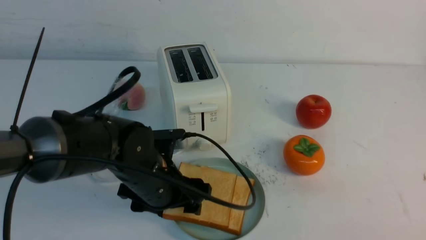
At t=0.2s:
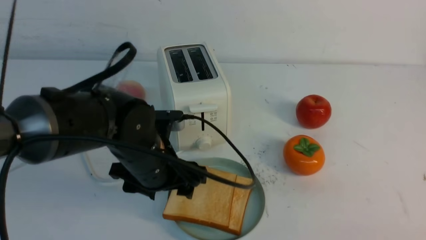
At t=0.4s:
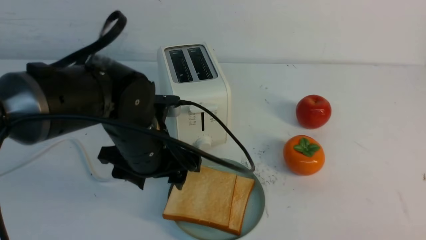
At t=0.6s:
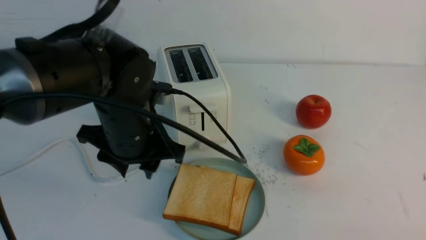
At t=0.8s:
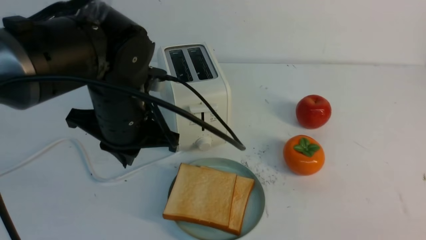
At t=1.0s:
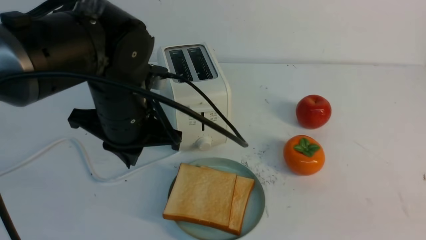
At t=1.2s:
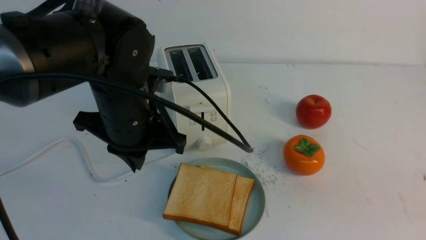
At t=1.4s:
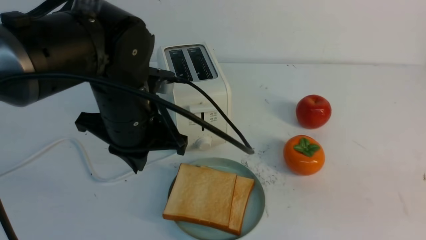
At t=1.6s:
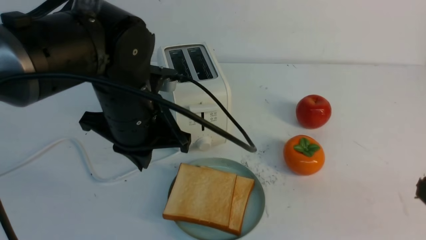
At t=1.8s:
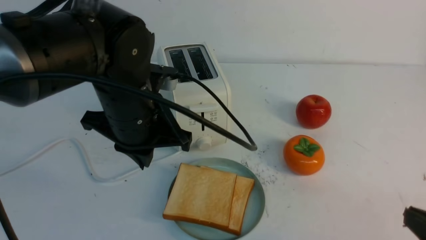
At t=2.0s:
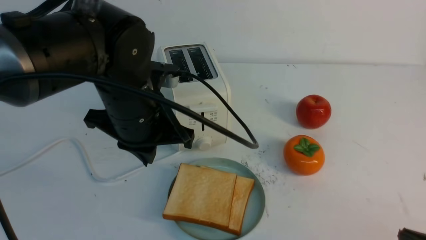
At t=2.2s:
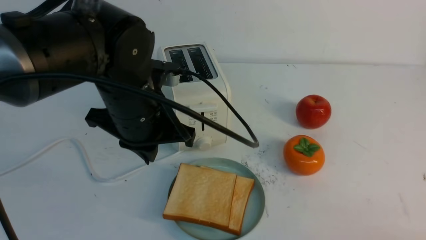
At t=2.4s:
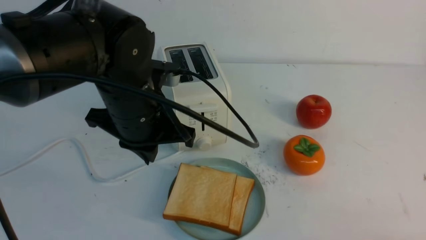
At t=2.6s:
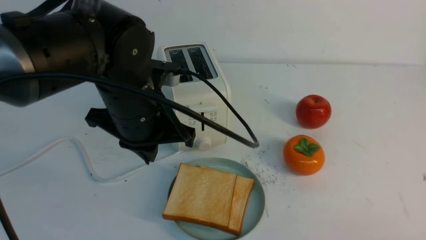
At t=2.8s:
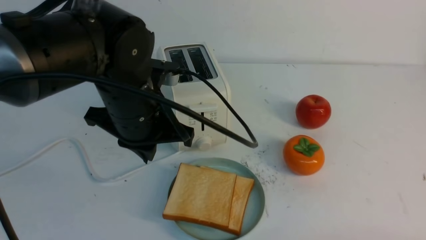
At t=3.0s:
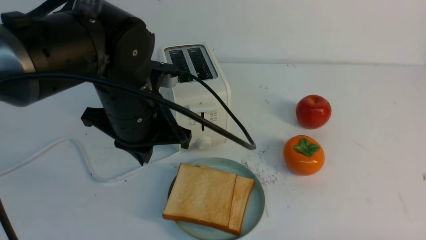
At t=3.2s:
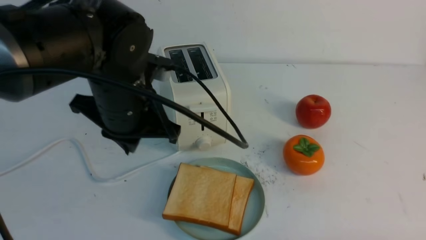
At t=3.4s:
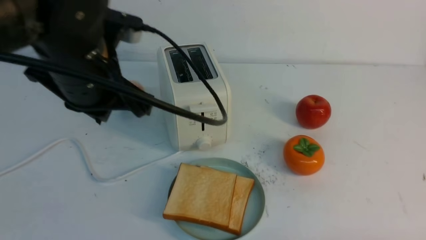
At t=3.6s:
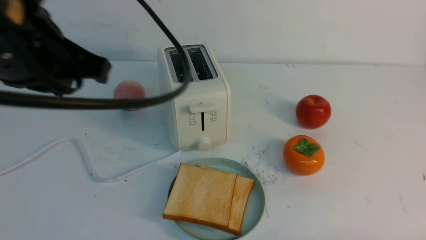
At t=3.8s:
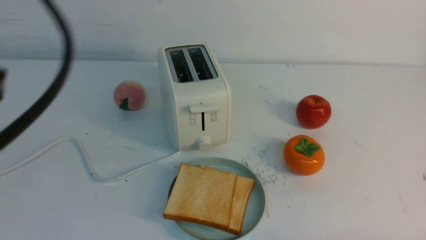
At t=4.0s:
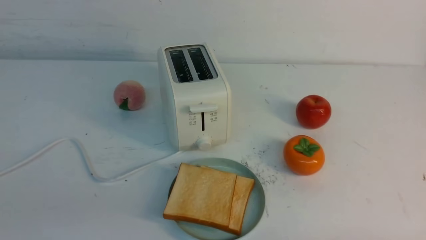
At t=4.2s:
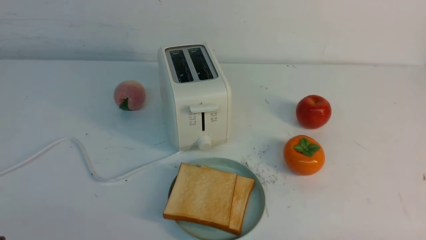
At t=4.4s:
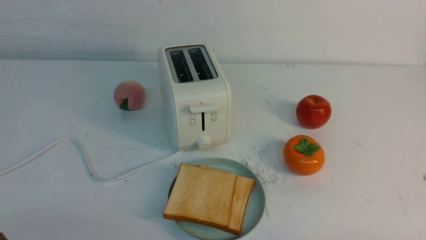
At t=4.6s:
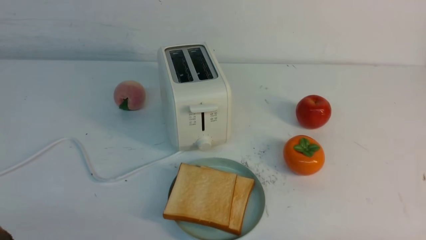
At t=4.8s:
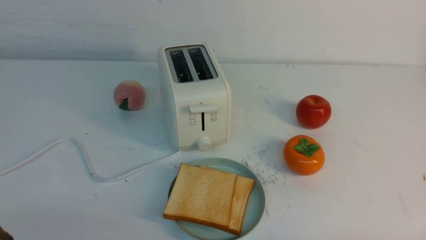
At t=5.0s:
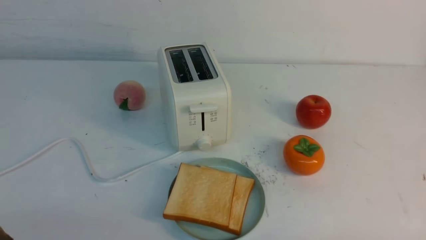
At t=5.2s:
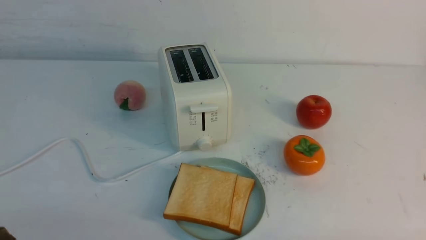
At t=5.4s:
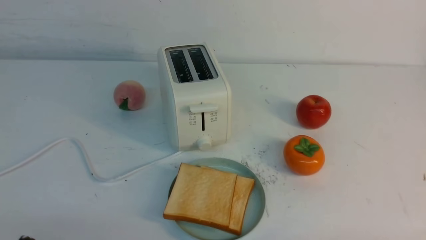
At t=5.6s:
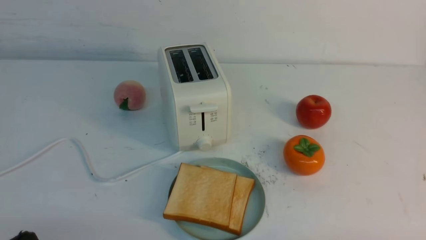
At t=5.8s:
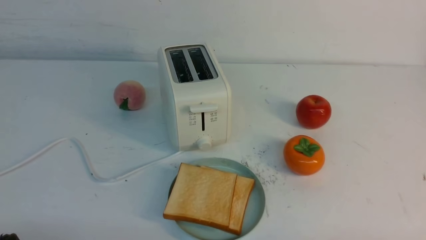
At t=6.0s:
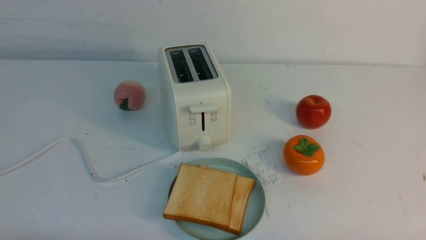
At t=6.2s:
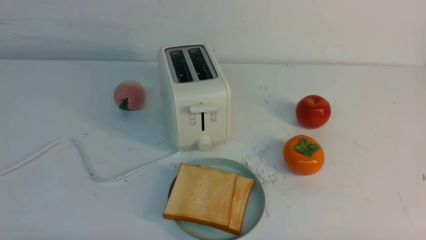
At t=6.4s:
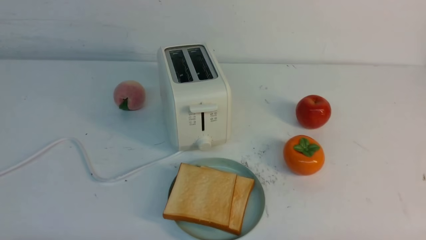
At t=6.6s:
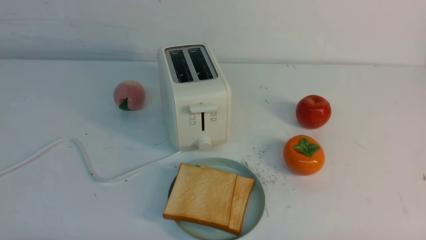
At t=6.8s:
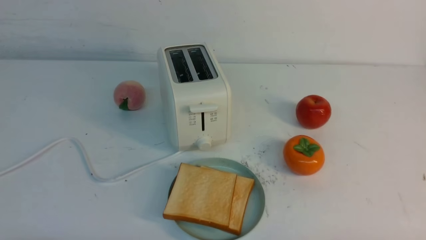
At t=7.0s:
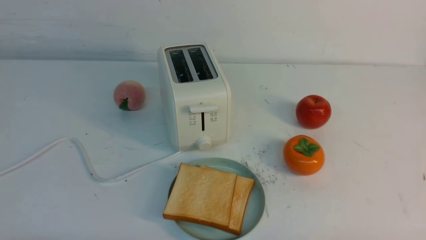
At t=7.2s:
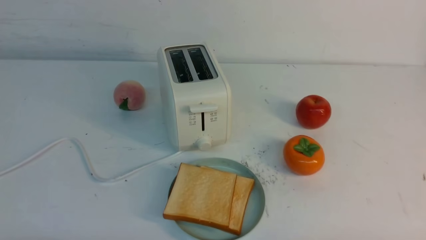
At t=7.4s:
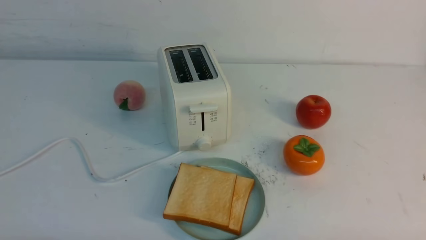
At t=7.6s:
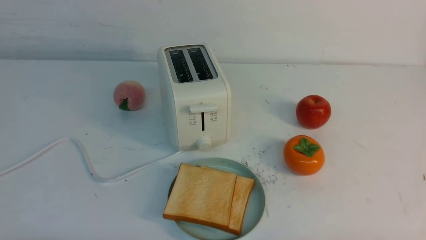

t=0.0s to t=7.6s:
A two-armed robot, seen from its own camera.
Task of the whole recording: take toasted bread from bread machine on white table place on plate.
t=0.0s to t=1.6s: The left gripper heads upward, covering roughly 10 cm, and closes its fingers, while the right gripper is displaced downward and forward by roughly 10 cm.
t=1.6s to t=3.0s: The right gripper goes roughly 10 cm downward.
t=3.0s to t=4.6s: The left gripper moves backward and to the left, roughly 30 cm.
t=6.0s to t=7.6s: The two grippers keep their place.
